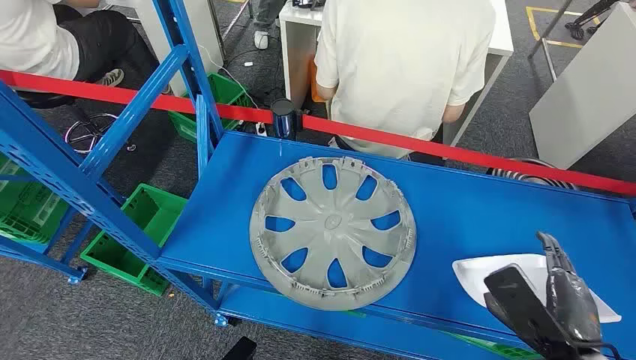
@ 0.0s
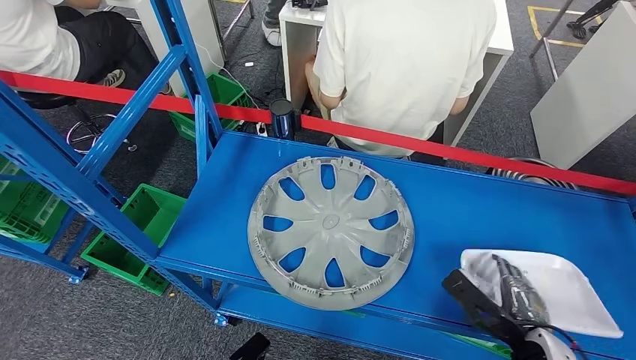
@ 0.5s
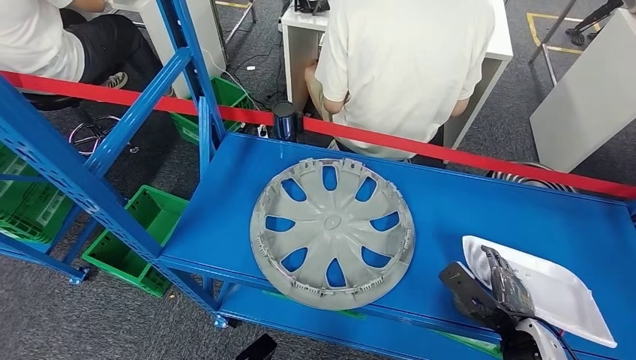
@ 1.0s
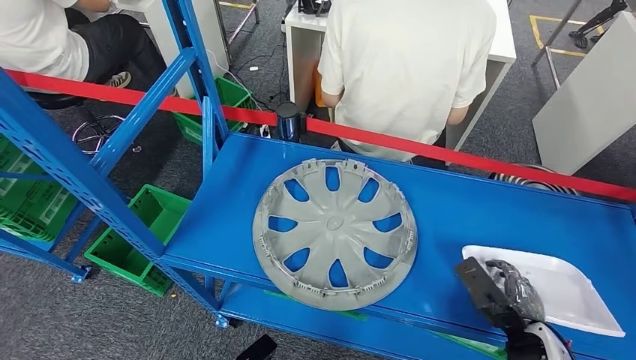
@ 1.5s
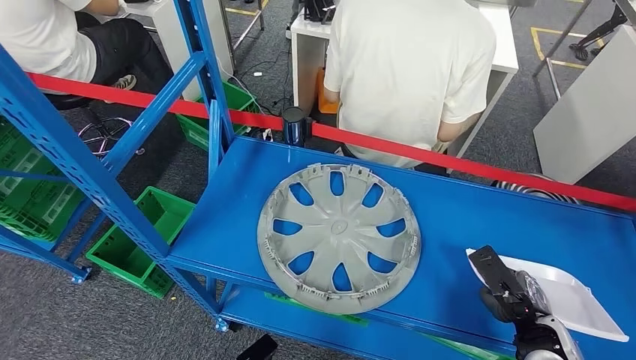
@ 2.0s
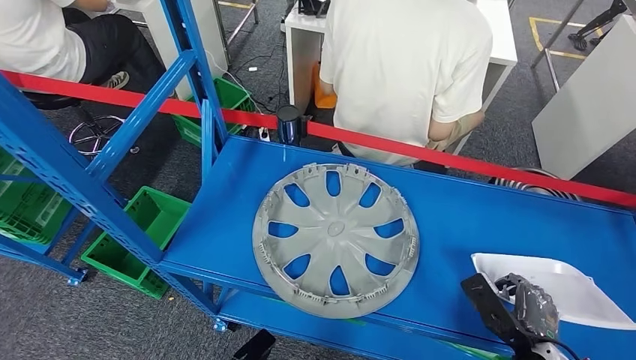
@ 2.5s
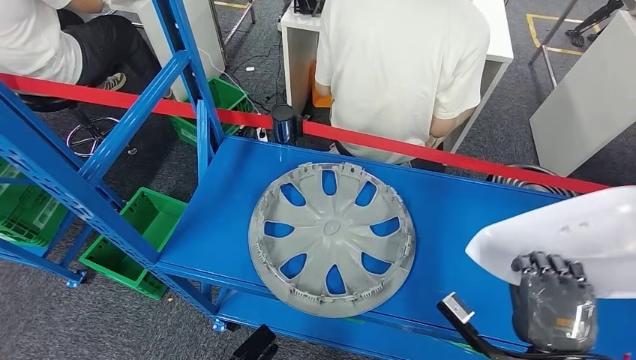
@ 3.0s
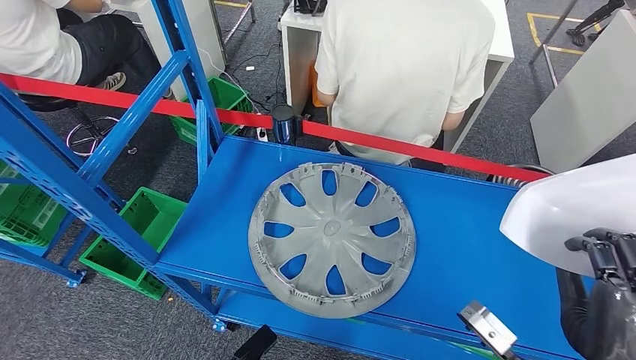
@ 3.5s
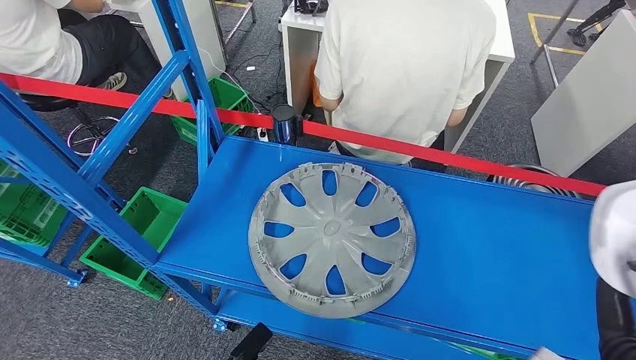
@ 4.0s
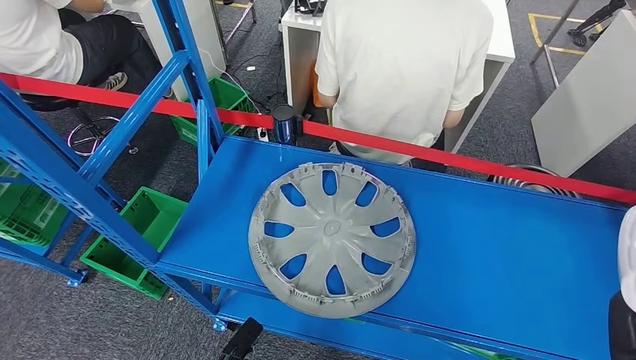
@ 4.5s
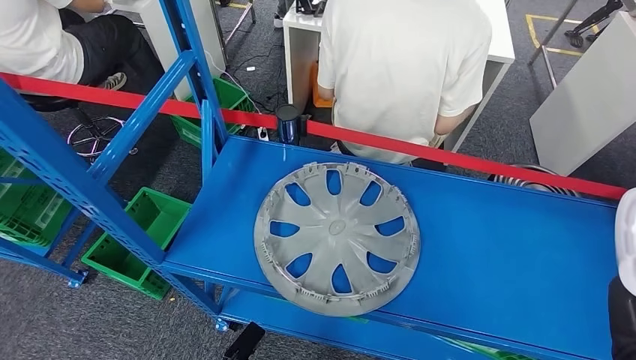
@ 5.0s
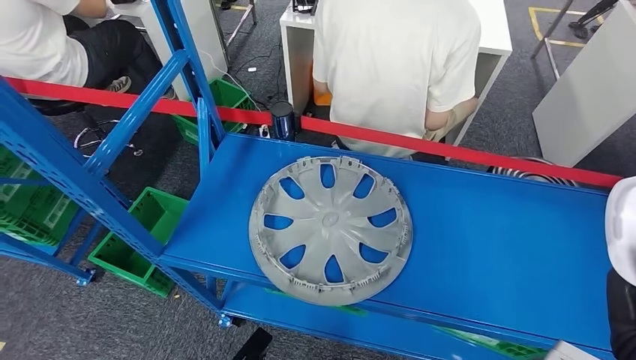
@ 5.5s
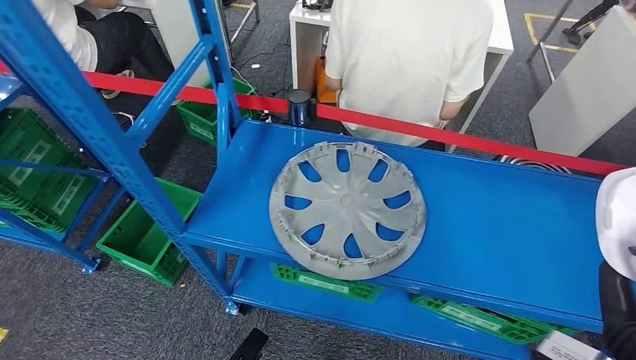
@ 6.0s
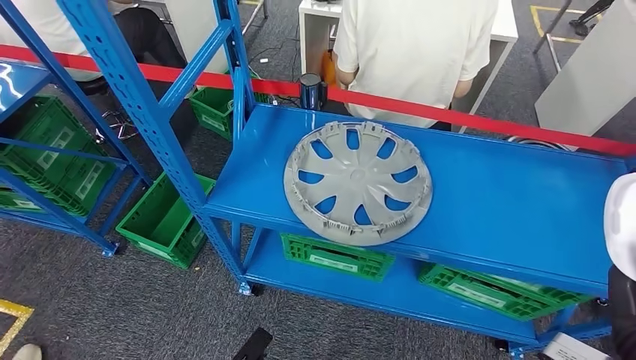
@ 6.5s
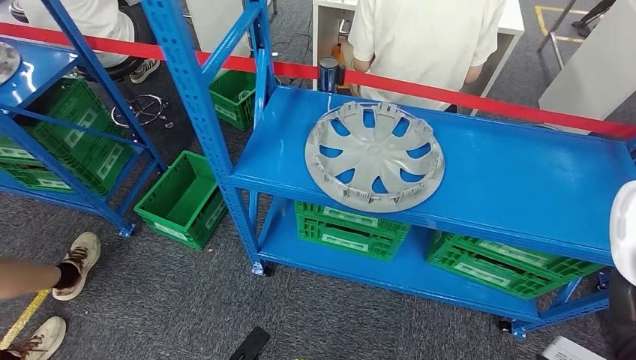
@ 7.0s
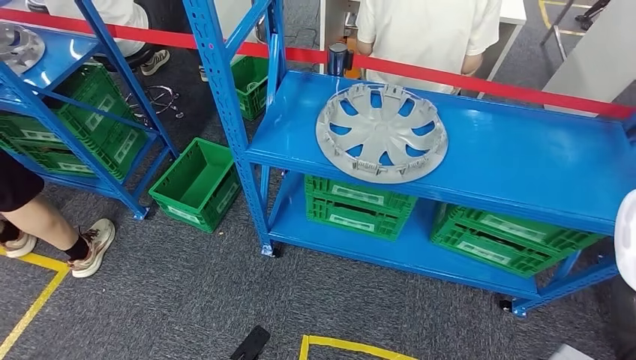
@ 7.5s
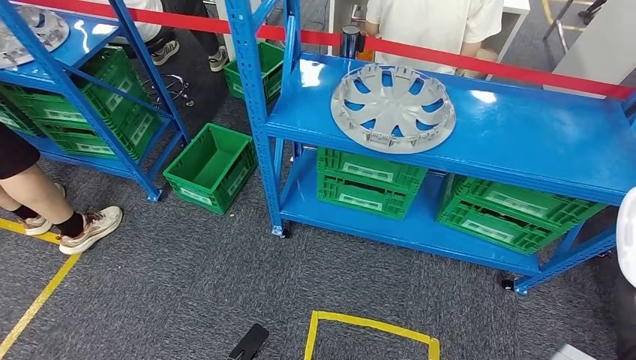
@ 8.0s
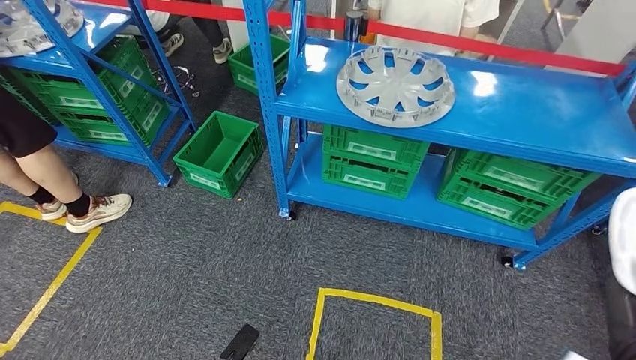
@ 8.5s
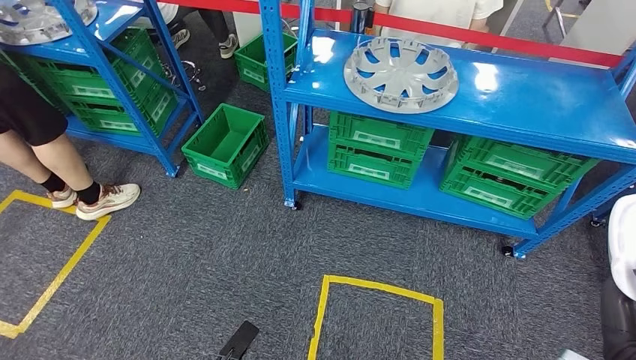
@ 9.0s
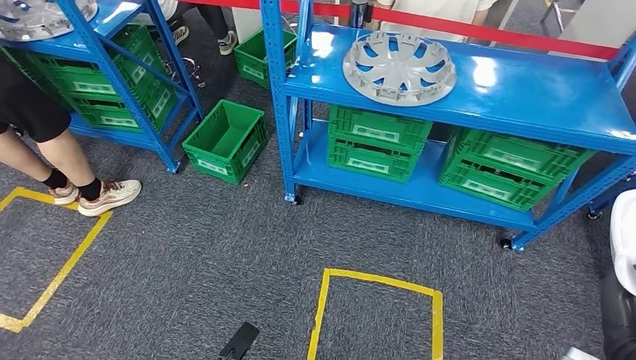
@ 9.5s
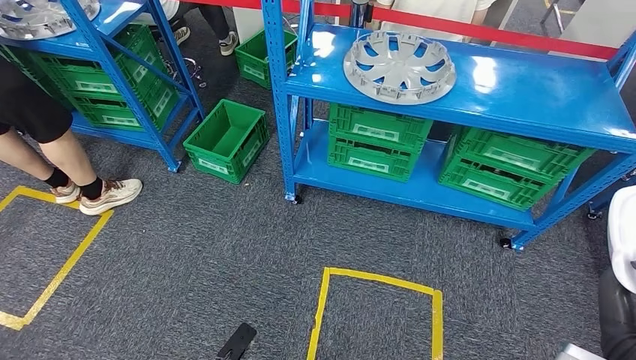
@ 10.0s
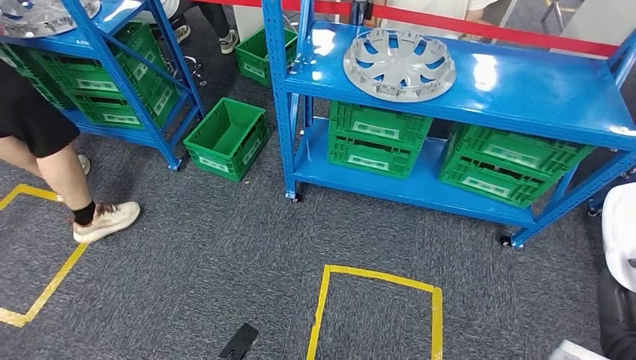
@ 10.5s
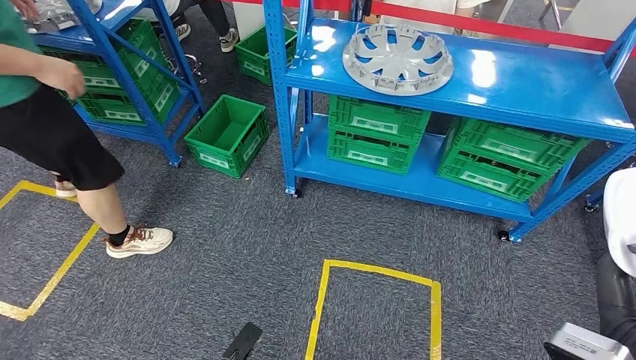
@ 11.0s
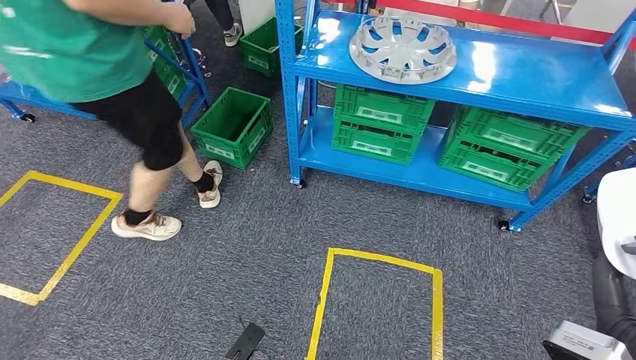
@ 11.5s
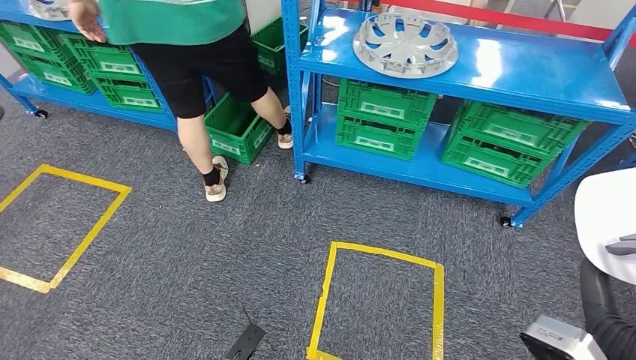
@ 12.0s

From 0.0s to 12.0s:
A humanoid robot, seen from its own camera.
Step, from 0.0s to 4.5s: Pick up the small component from the shelf.

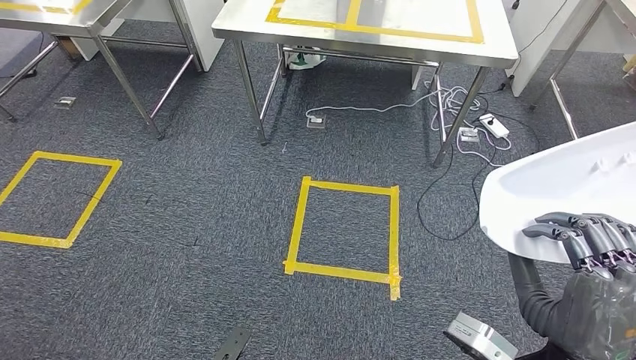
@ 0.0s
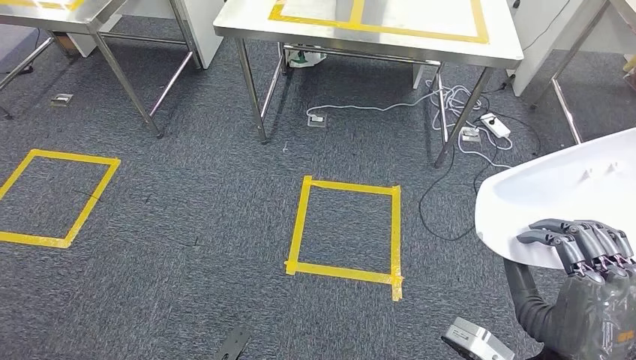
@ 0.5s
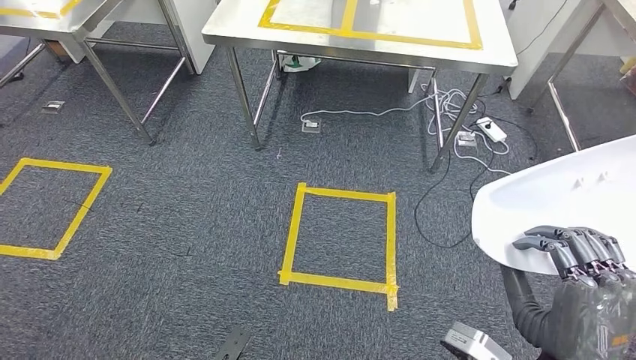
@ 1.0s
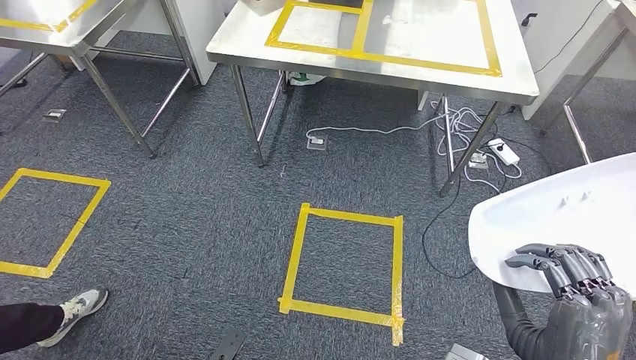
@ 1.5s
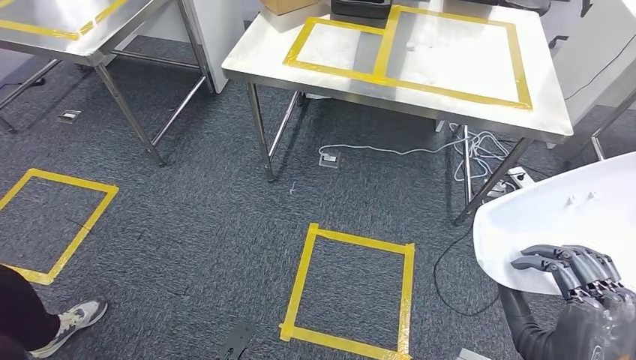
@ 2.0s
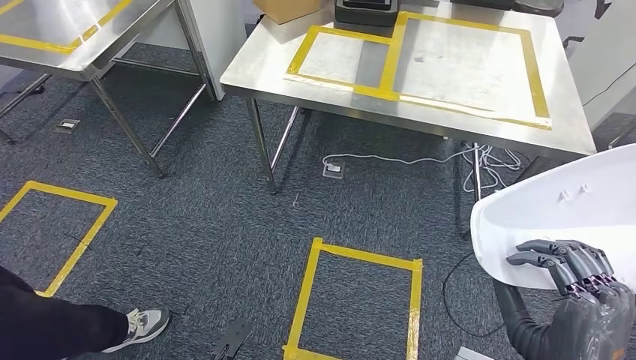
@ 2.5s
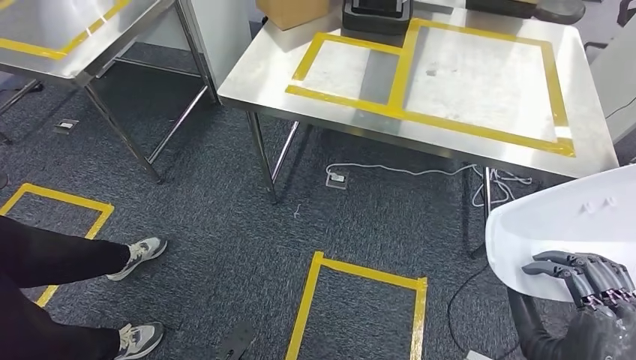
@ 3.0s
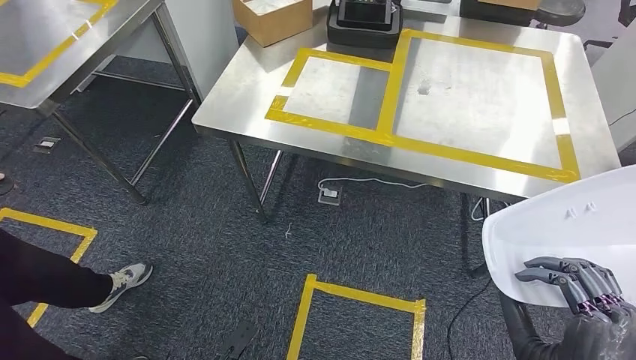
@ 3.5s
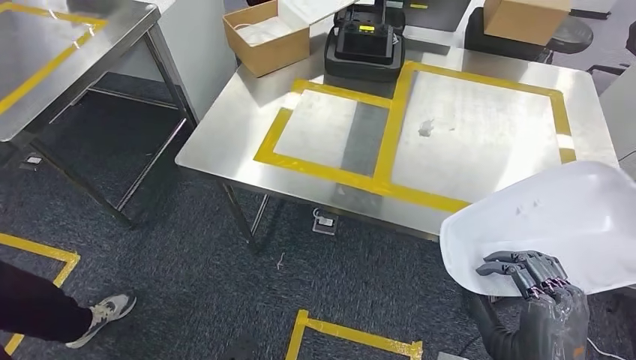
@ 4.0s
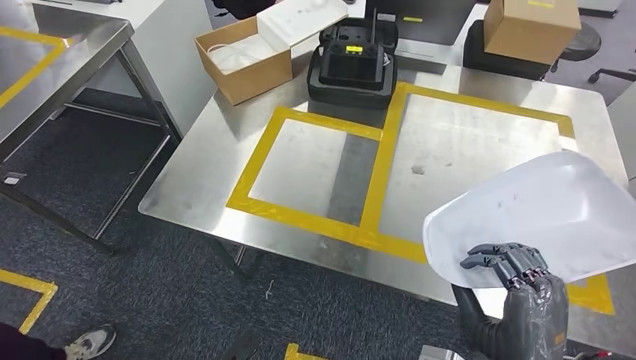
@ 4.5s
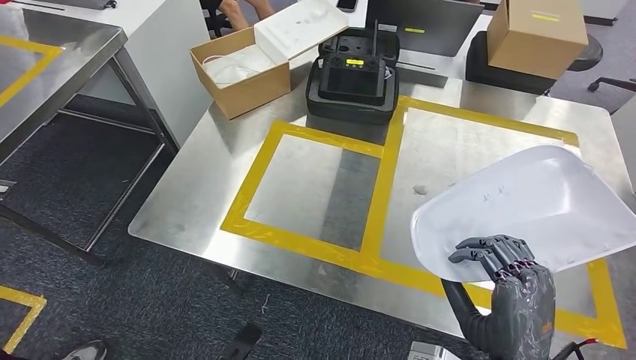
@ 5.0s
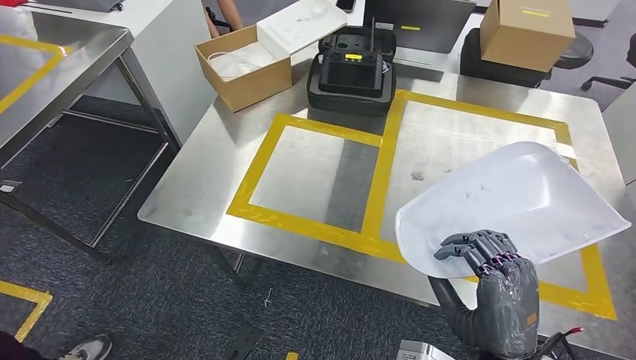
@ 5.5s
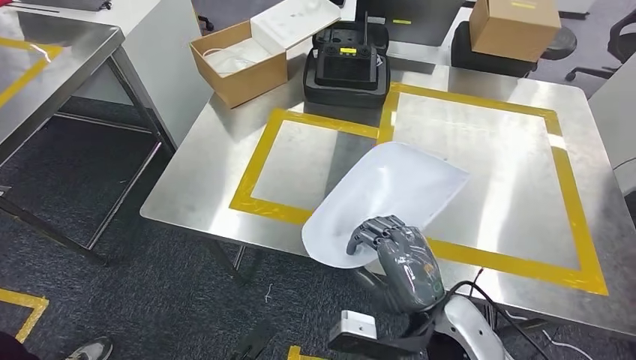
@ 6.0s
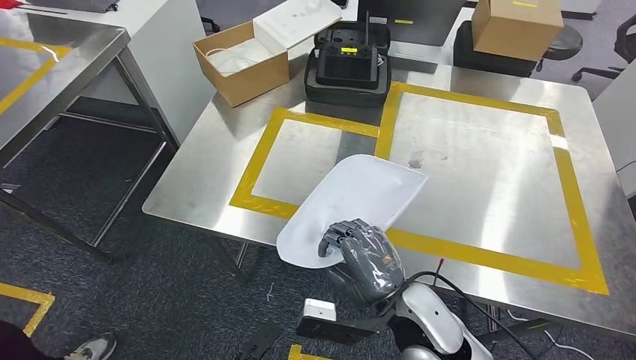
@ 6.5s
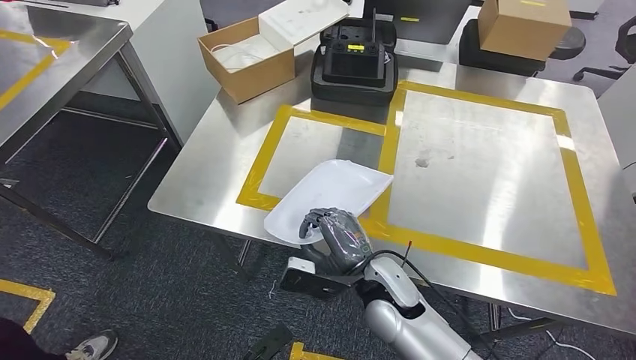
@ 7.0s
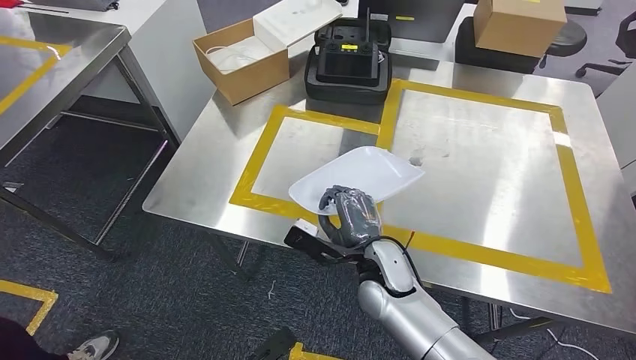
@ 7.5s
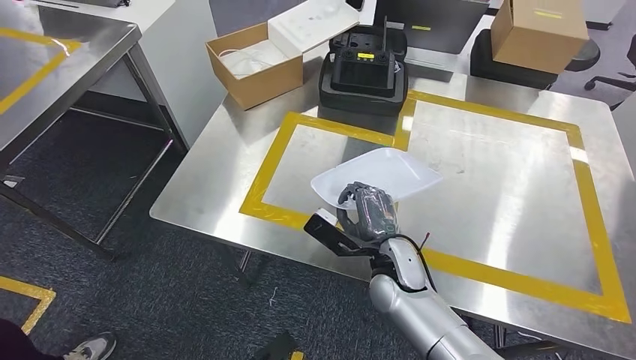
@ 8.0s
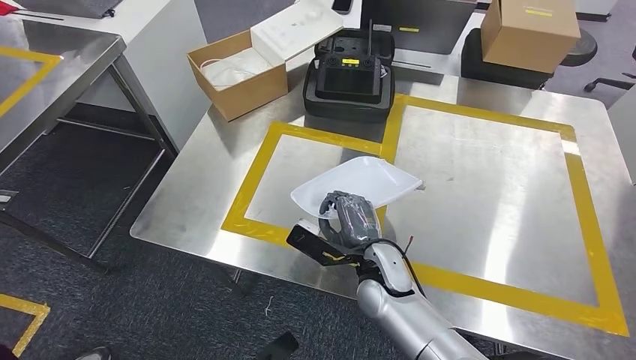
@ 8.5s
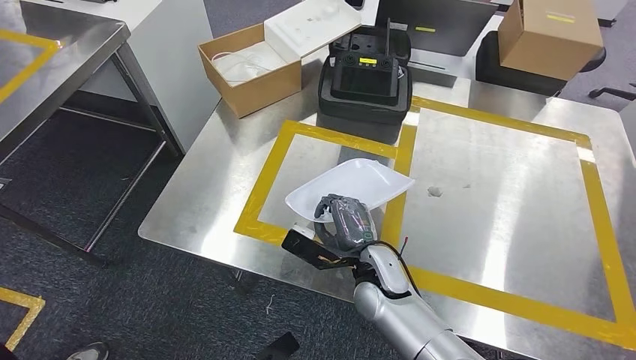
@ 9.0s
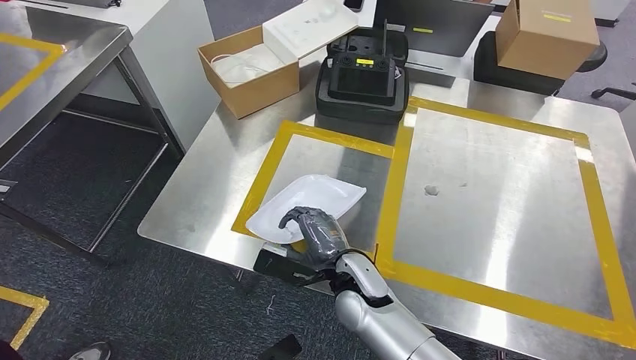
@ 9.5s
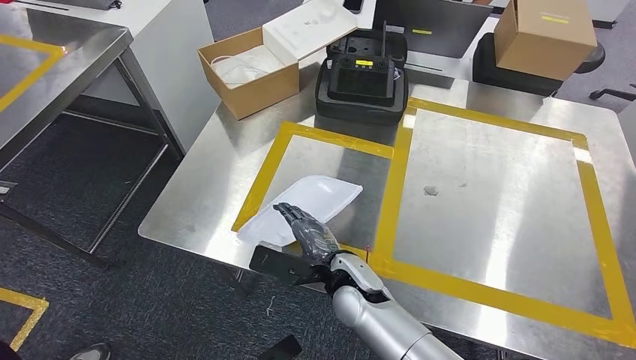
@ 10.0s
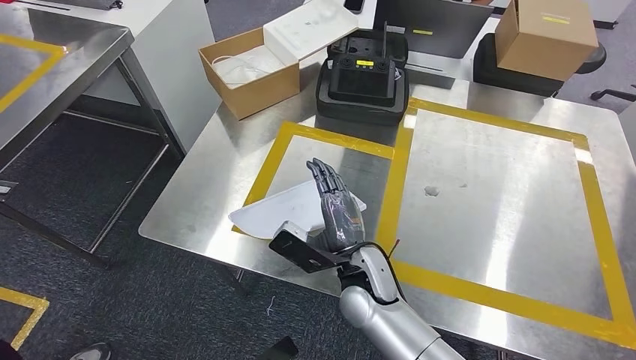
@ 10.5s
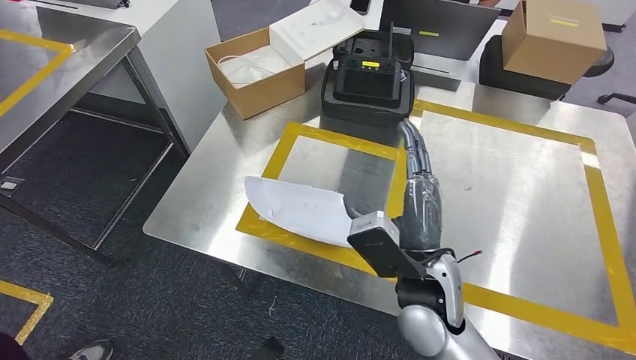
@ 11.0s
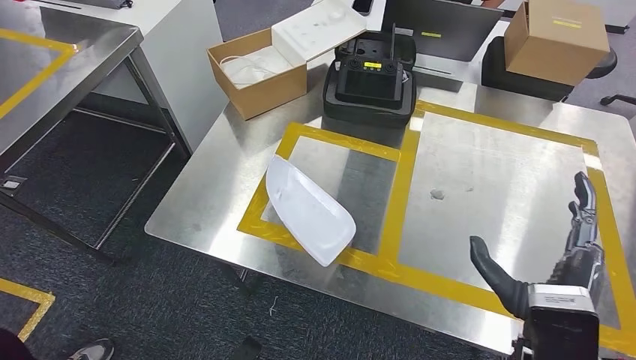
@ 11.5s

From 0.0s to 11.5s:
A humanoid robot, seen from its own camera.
Step, from 0.0s to 4.0s: Move the small component to the workbench.
